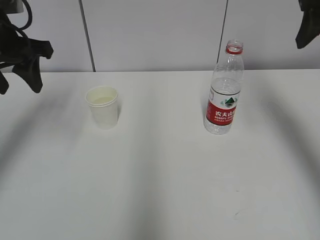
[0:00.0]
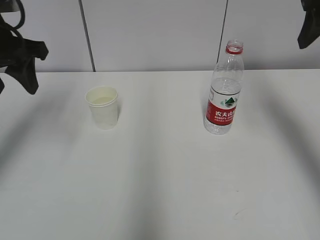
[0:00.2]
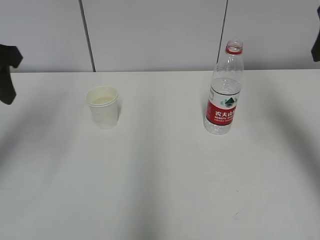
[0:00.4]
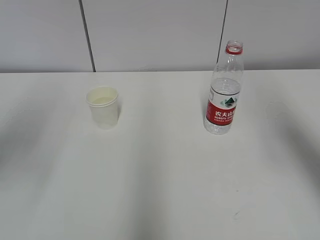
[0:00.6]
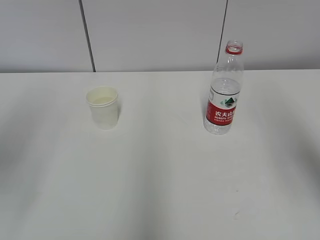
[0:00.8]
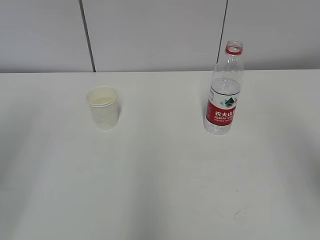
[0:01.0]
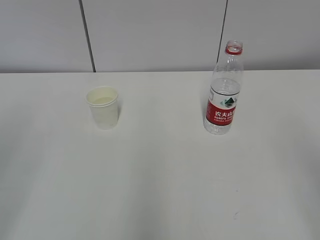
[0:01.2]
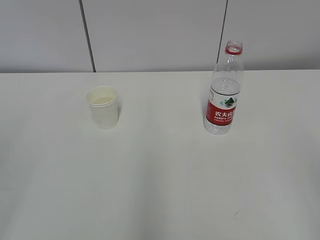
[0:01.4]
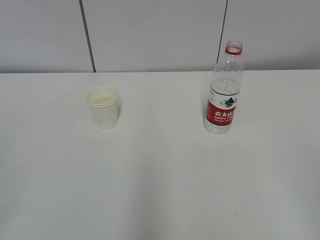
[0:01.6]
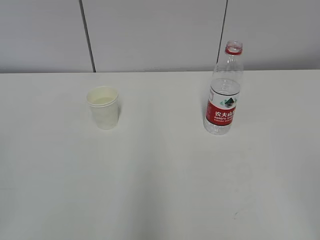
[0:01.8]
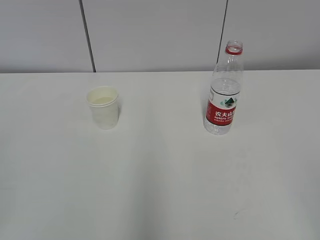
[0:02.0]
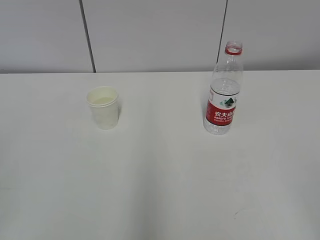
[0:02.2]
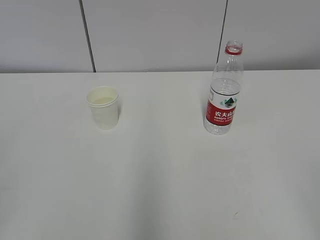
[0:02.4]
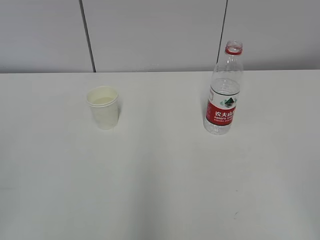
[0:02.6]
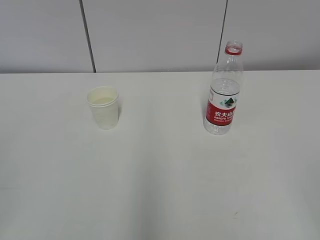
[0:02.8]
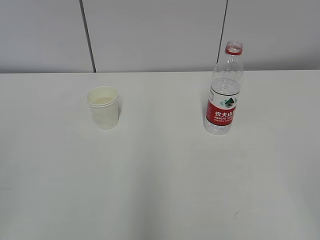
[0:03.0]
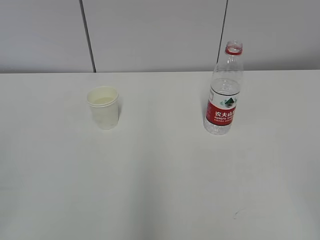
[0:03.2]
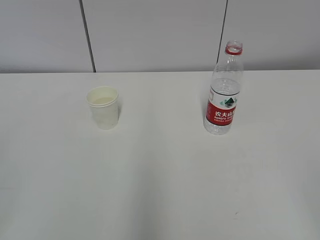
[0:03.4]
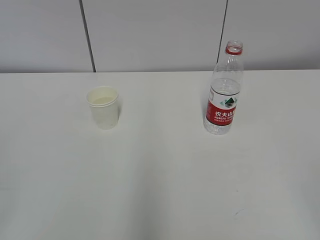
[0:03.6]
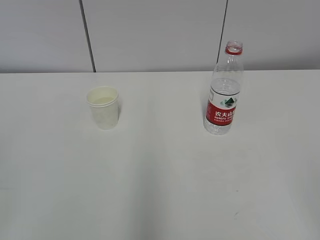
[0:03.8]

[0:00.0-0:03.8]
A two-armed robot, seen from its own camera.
0:00.0 to 0:01.2: The grippers both shift backward by about 25 cm.
0:02.6 to 0:03.8: Both grippers stay put.
